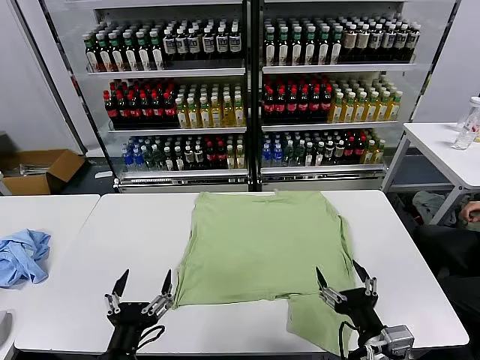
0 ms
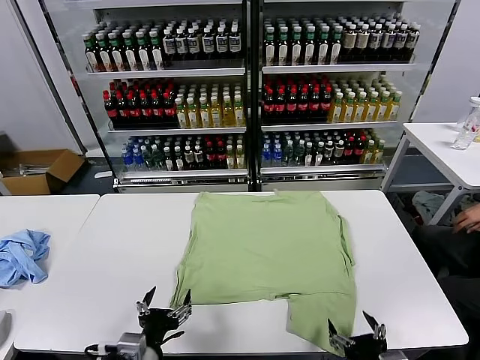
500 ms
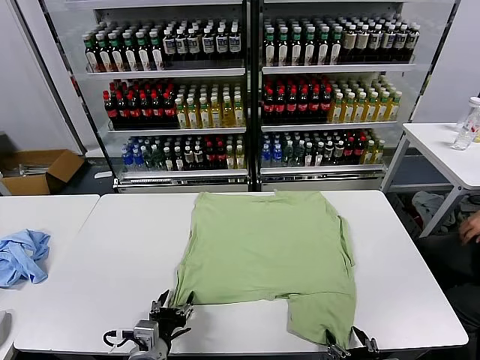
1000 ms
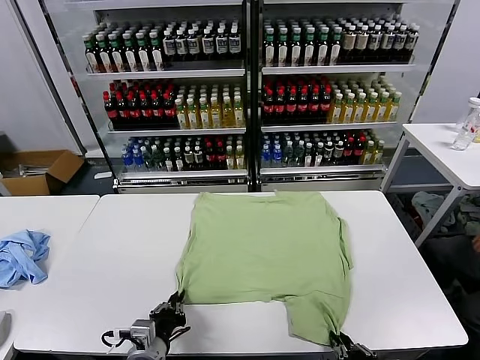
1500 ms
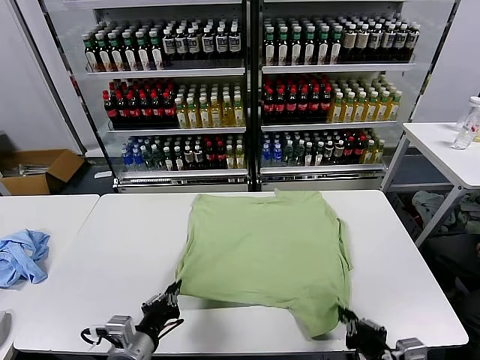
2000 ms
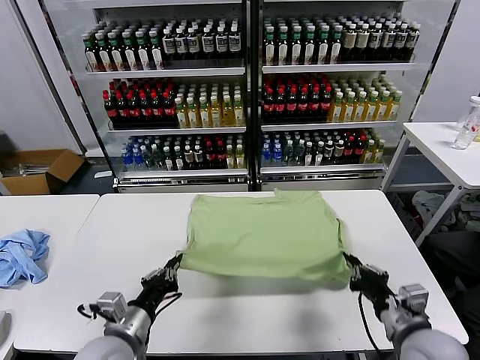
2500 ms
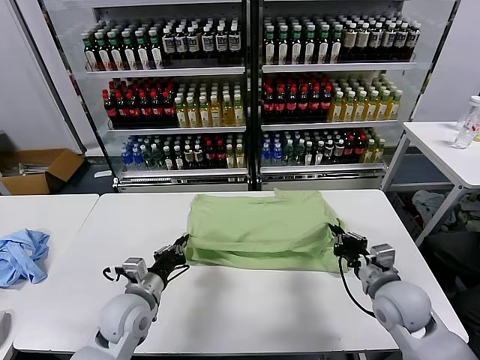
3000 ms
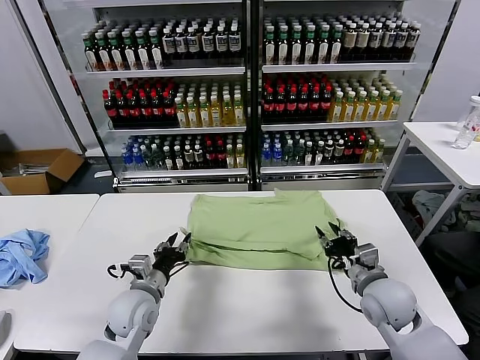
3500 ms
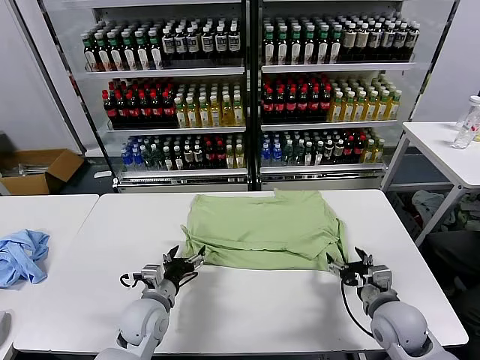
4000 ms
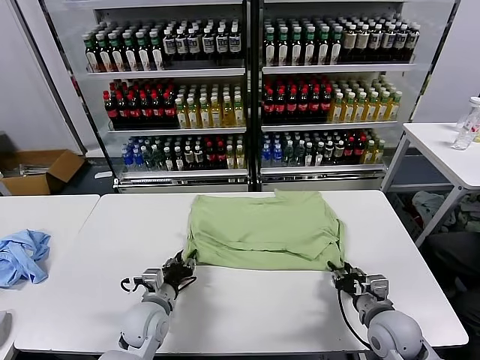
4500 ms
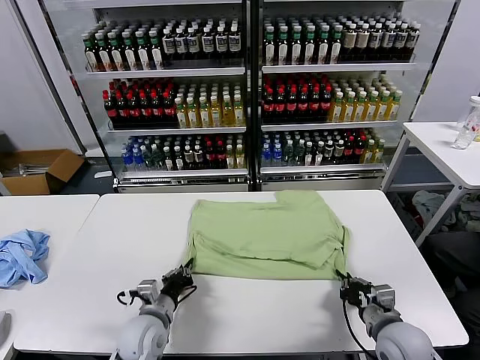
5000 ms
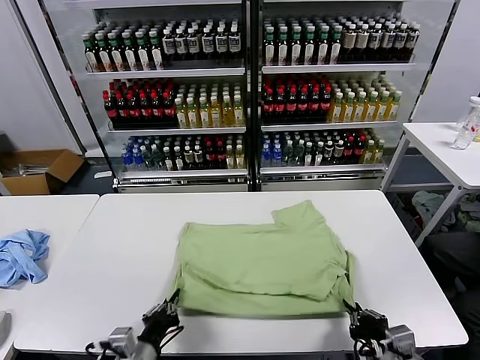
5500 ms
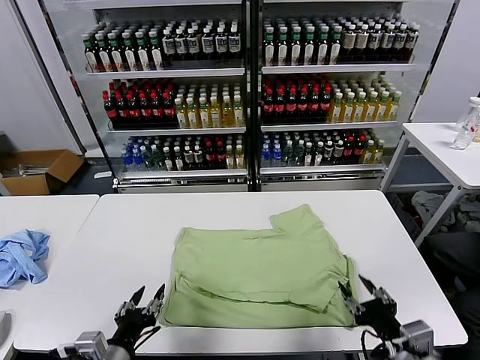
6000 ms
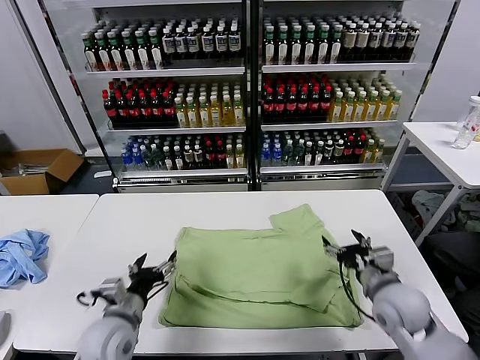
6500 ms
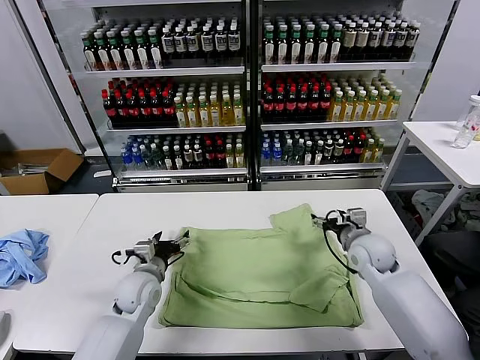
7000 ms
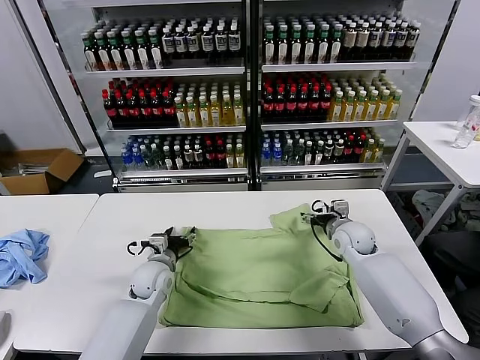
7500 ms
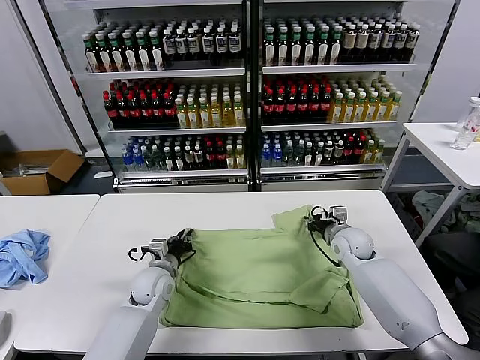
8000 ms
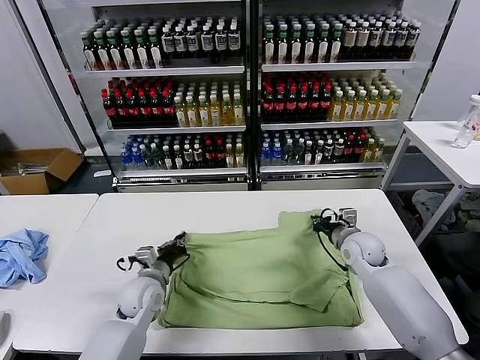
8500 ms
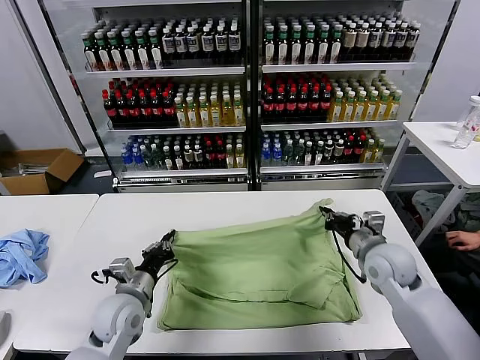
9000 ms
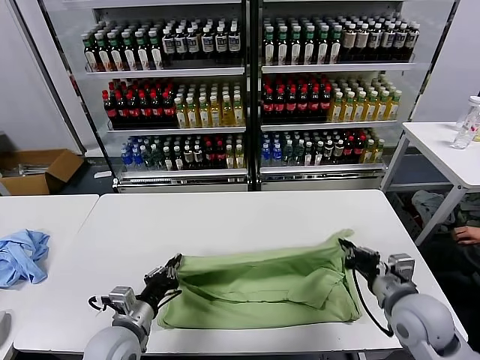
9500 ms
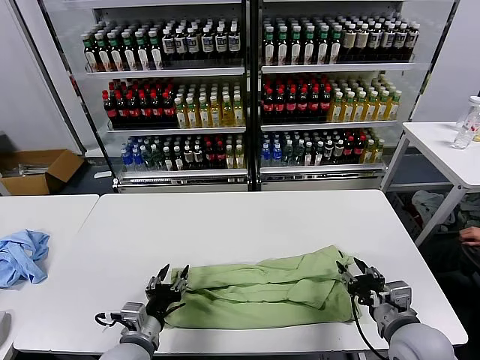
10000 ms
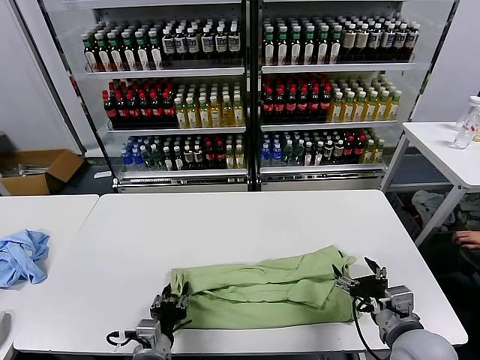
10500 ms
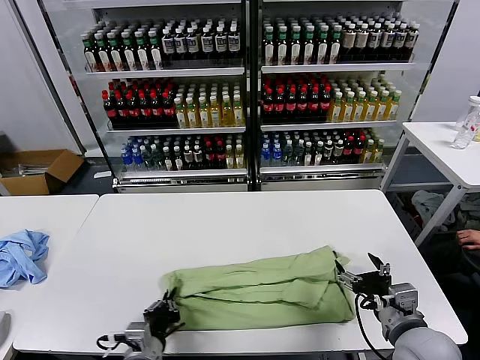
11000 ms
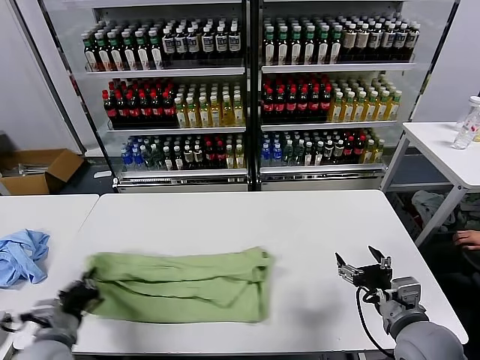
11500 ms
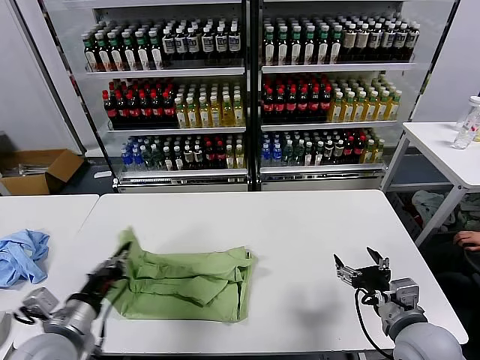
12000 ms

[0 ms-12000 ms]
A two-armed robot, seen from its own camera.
Task of the whole recording: fold and organize the clothes.
Step, 0 ms to 1500 ms: use both grippers simultaneously to clamp the lower edge of the clothing fabric.
Step, 2000 ms to 3500 ms: use both grippers to drag the lower edge of the fabric forward and fold it over the upper edge.
Step, 4000 ms to 5500 ms: Drag the clothes downward with both gripper.
Step, 6000 ms to 8000 ms: use both grippers simultaneously to clamp the upper edge of the clothing fabric.
Step, 8500 ms to 9500 ms: use both grippers to drag the upper edge of the fabric backward and fold it over the lower edge.
Step, 10000 ms to 10500 ms: use the left gripper to clamp the left edge of the fabric.
2000 ms to 4000 ms: The left gripper goes approximately 15 cm forward and downward, and opens up. Meanwhile the right gripper heads forward, covering roughly 15 cm, and opens its fingers.
4000 ms to 6000 ms: The right gripper is displaced backward and upward by some 15 cm, and closes. Meanwhile the left gripper goes approximately 15 cm backward, and closes its fingers.
6000 ms to 8000 ms: The grippers both shift forward by approximately 30 cm. The left gripper opens, then closes once more; the right gripper opens, then closes again.
8000 ms to 10000 ms: Both grippers move backward, roughly 20 cm. The right gripper closes and opens again.
10000 ms to 12000 ms: The left gripper goes roughly 15 cm to the left and upward, and closes its fingers, while the right gripper opens its fingers.

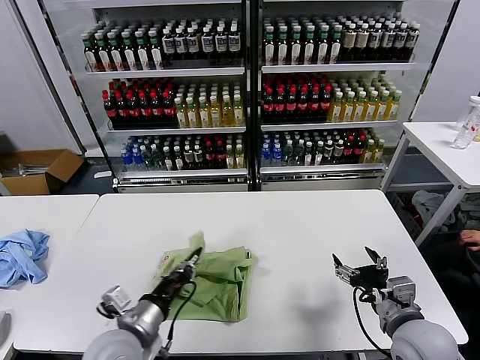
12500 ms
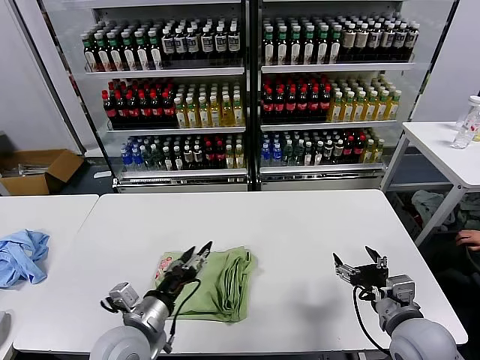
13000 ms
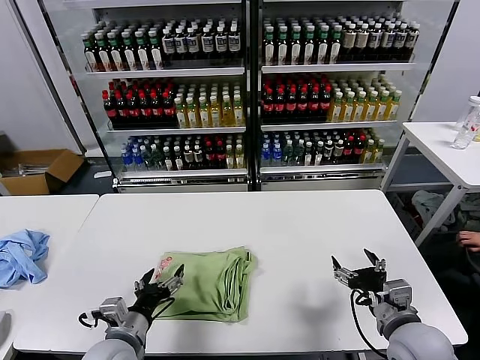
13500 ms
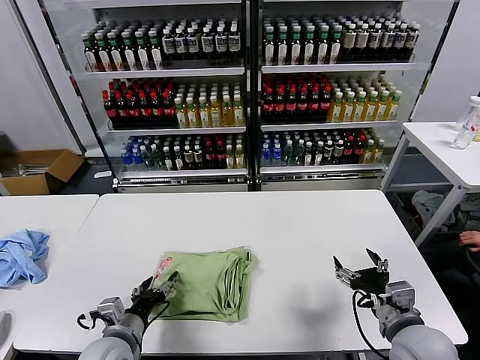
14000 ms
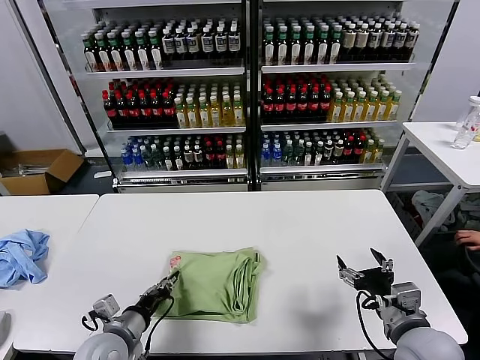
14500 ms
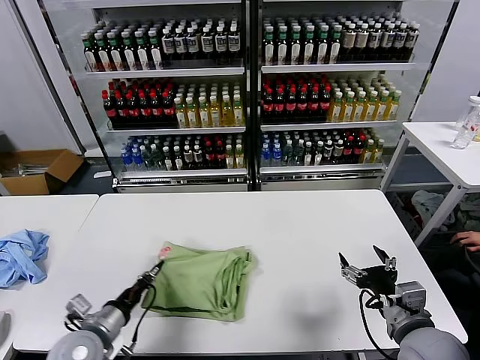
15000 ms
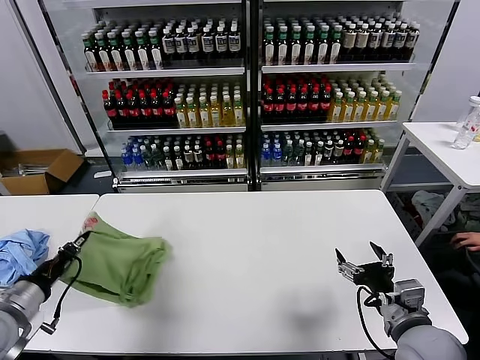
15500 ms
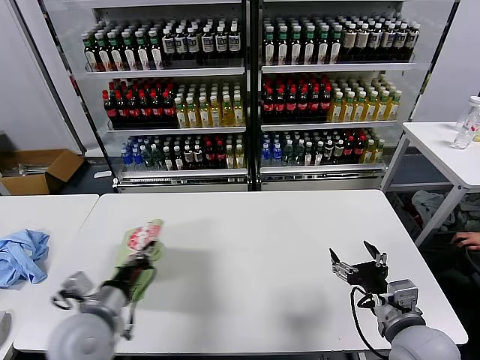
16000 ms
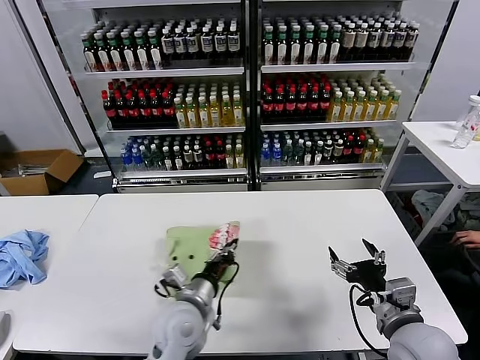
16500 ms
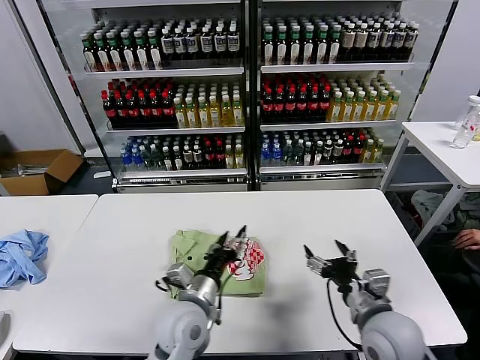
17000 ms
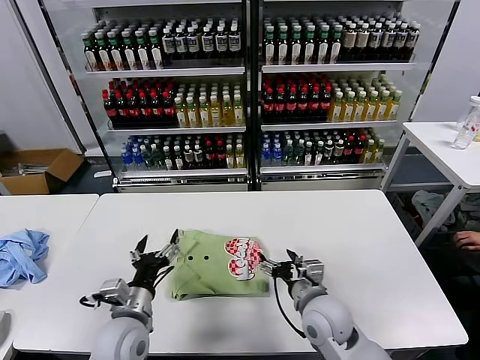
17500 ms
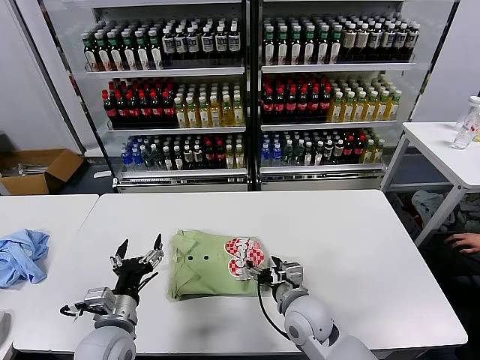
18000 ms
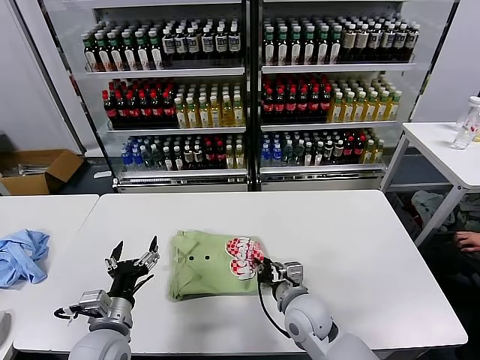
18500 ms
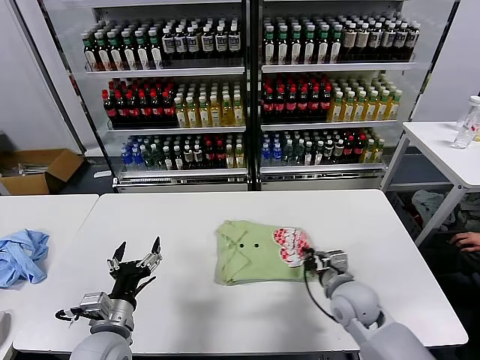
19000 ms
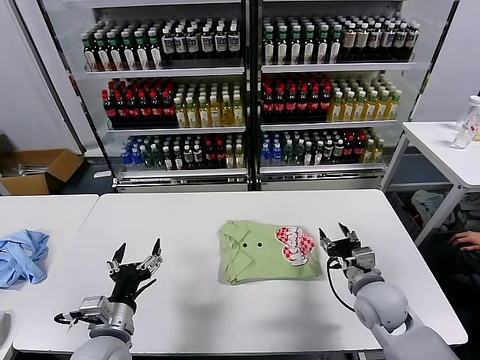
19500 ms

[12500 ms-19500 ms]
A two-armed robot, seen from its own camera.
Task of the whole recording: fold and organize the clothes.
Step, 13000 ms to 16500 ms: Flip the folded clothes over with left gripper.
Step, 17000 ms to 19000 ms: Drag the clothes to the center of the table.
12500 ms to 14500 ms: The left gripper shifts about 5 cm downward, and opens, then closes once more.
14500 ms to 16000 ms: The left gripper goes approximately 10 cm upward, and reaches approximately 15 cm to the left, then returns.
16000 ms to 17500 ms: The left gripper heads to the right and downward, covering some 10 cm, and opens up. Meanwhile the right gripper travels to the left, forward and downward by about 15 cm.
17500 ms to 19500 ms: The right gripper heads to the right, covering some 10 cm, and closes up.

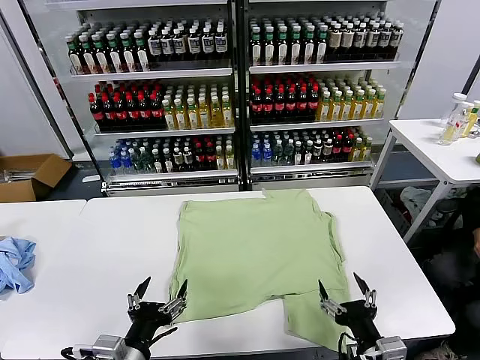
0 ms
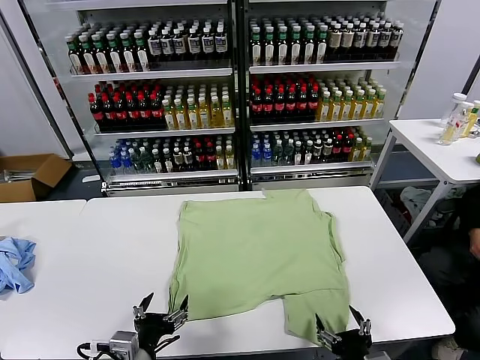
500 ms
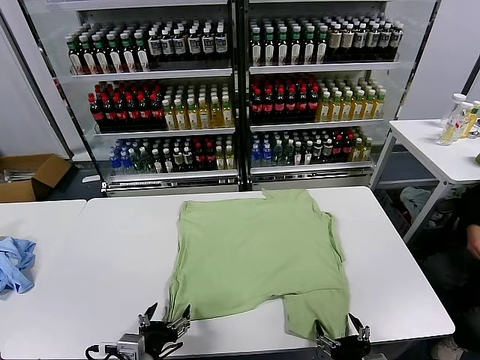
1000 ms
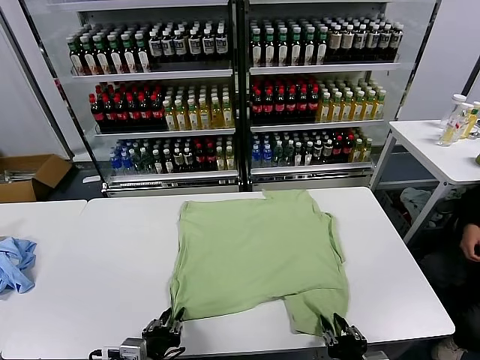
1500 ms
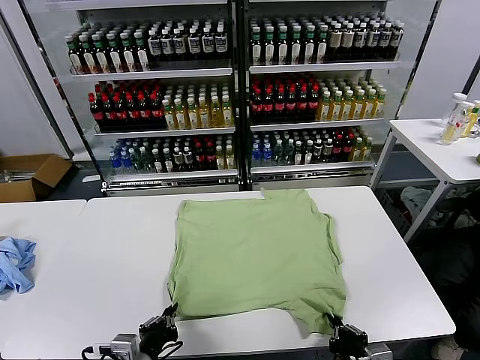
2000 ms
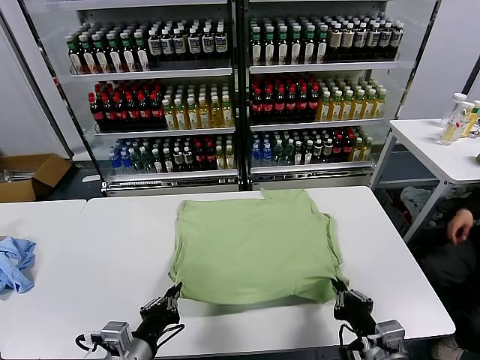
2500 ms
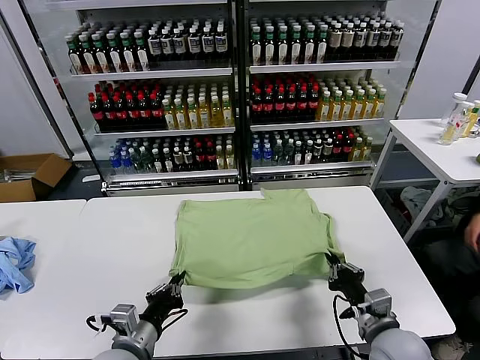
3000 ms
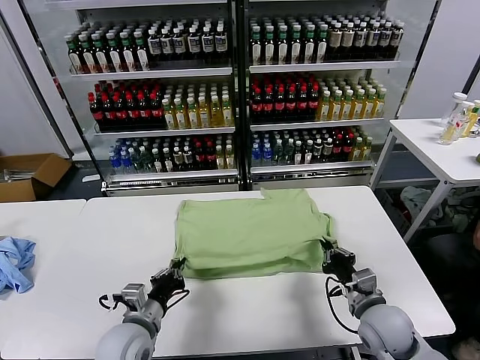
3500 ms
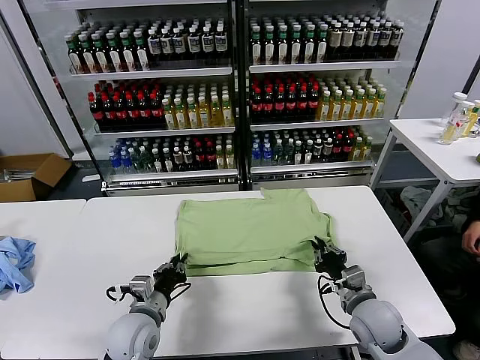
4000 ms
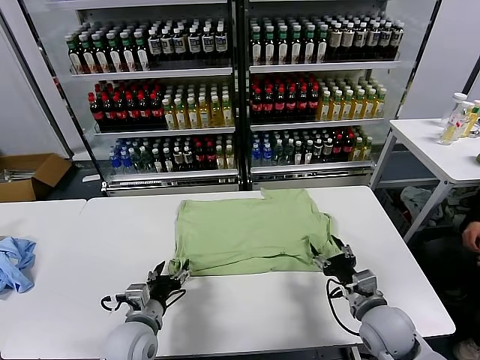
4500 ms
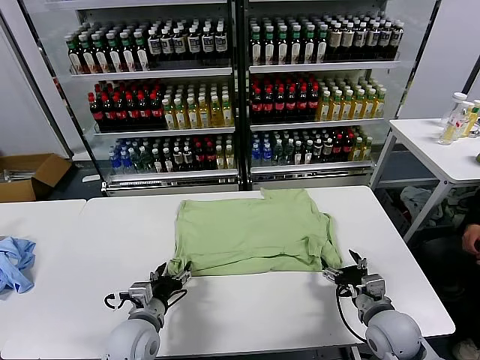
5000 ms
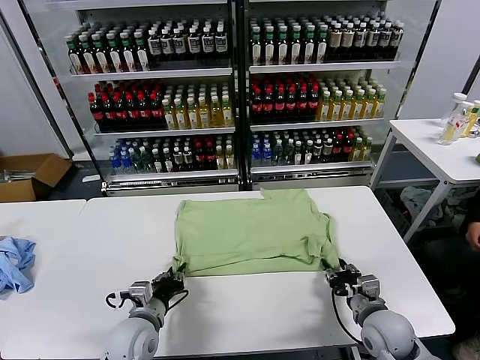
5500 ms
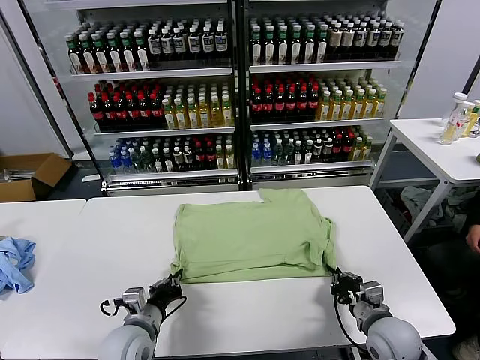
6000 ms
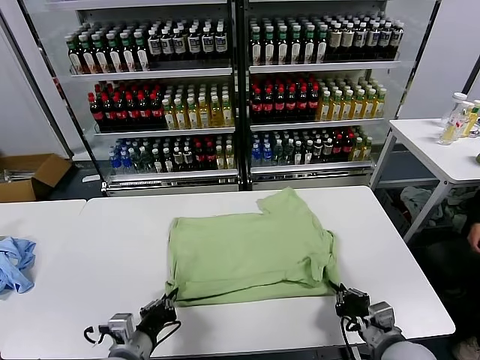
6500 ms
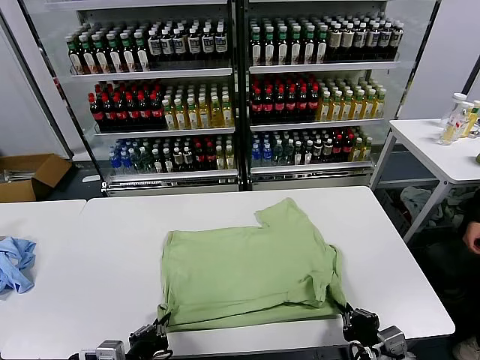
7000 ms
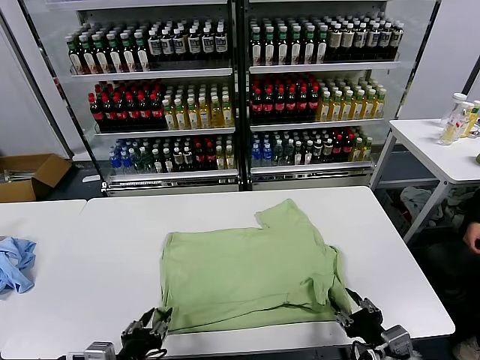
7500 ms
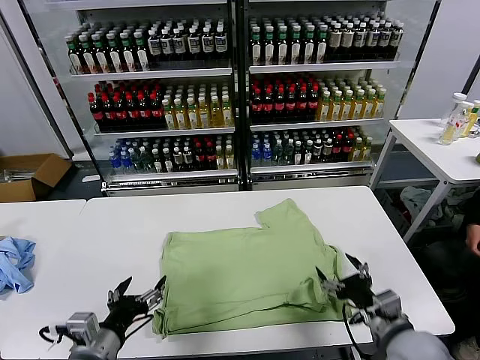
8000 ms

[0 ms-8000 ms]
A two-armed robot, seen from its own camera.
Task of the whole recording: fold and organize the clothes.
Step, 0 ms to 1500 ms: use both grippers simultaneously to clamp the lower edge of the clothing fabric.
Step, 2500 ms to 4000 ms: use both grippers to drag the lower edge of the fabric forward and fold it over the upper edge.
Step, 4500 ms to 7500 ms: Drag the clothes downward with both gripper.
2000 ms to 4000 ms: The grippers both shift forward by some 15 cm.
4000 ms to 6000 ms: The right gripper changes place by roughly 5 cm, and opens, then closes again; the left gripper opens, then closes again.
6000 ms to 8000 ms: The right gripper heads upward, covering about 5 cm, reaches roughly 10 cm backward, then returns, and opens its fingers, while the left gripper heads upward and backward, covering approximately 10 cm, and opens its fingers.
